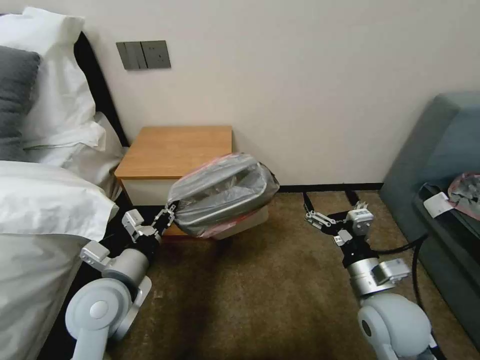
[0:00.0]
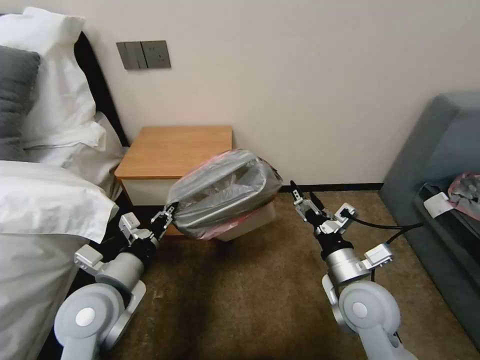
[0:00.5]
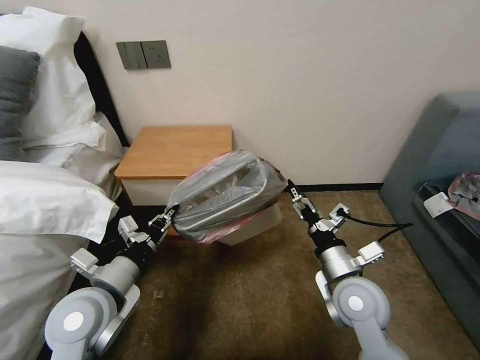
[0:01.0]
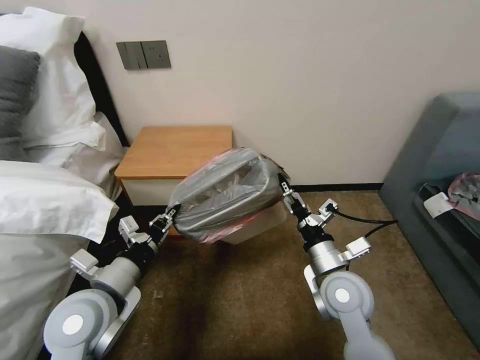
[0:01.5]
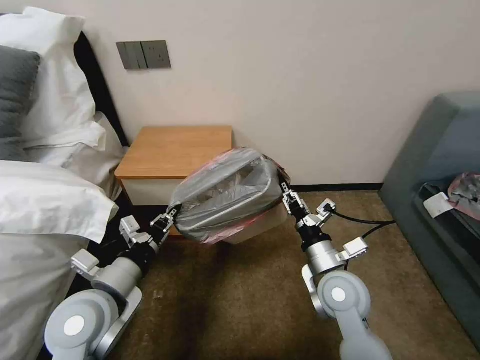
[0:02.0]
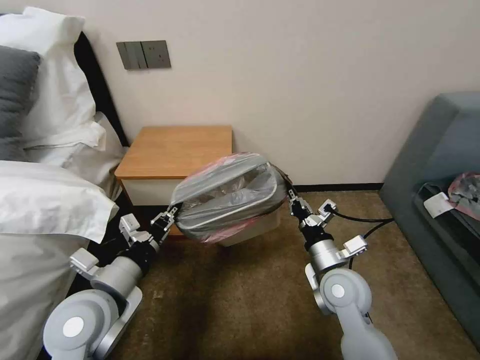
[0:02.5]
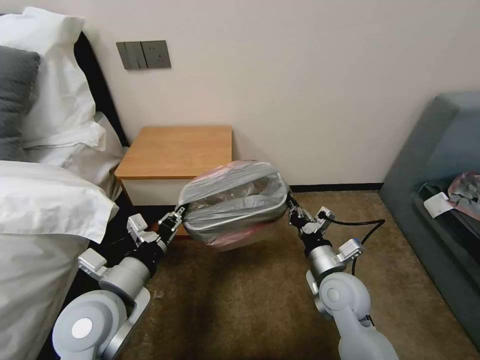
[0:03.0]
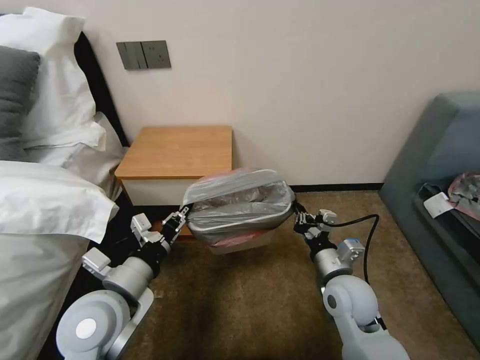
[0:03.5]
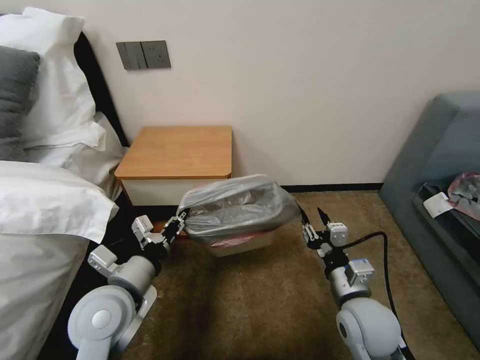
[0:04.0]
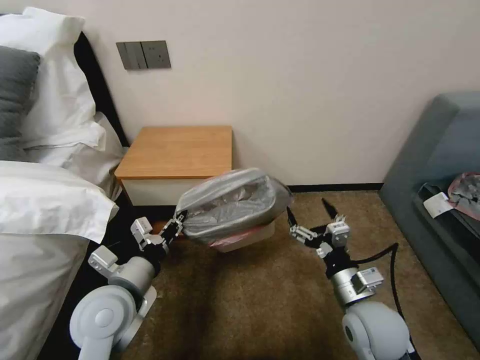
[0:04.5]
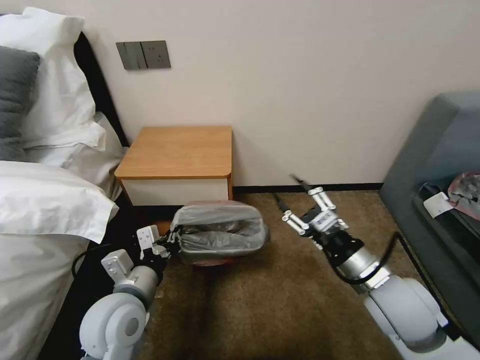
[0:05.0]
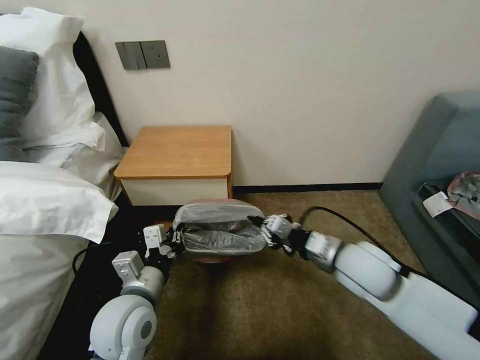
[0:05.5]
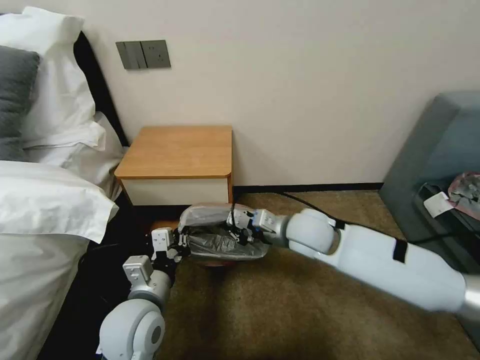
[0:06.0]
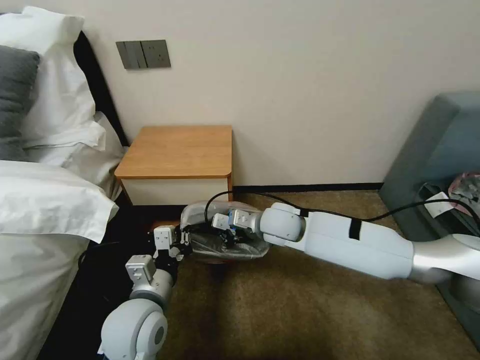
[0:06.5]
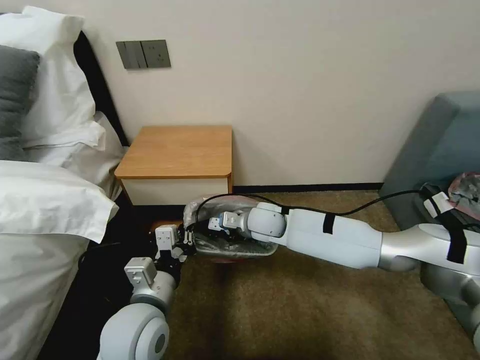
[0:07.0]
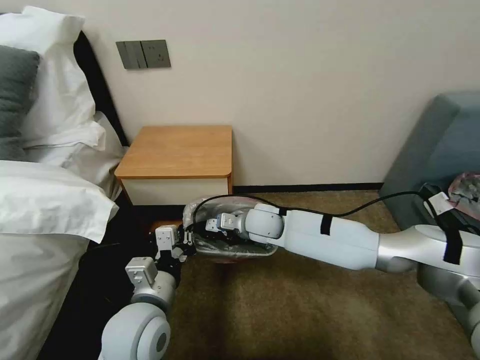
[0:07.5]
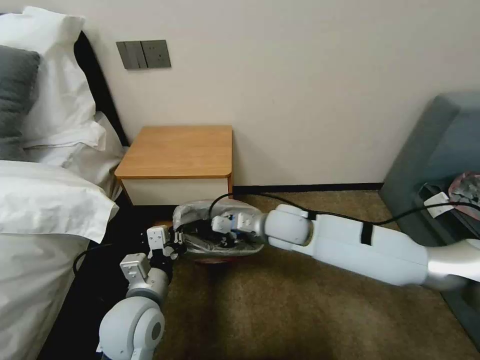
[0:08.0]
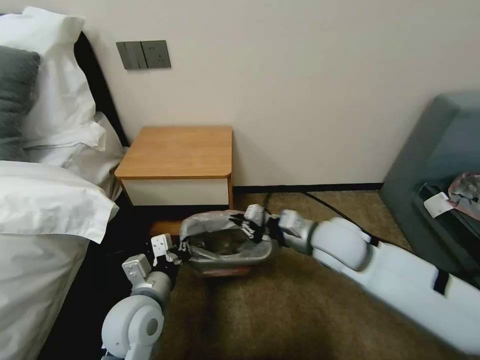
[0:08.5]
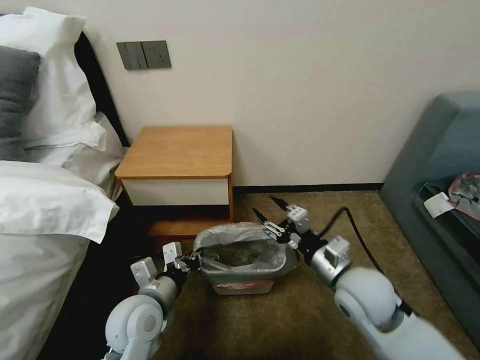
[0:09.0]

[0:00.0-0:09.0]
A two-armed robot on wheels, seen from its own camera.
Task of the whole recording: Pick up the garbage bag from the table and place it over the trash can.
0:00.0 to 0:02.0: The right gripper travels to the left and forward by some 10 cm, and closes its fingers.
0:02.0 to 0:04.5: The right gripper heads backward, covering approximately 5 cm, and opens.
0:04.5 to 0:07.0: The left gripper is displaced to the right by roughly 5 cm, while the right gripper travels forward and to the left by about 30 cm, and closes up.
0:07.0 to 0:09.0: The left gripper moves downward, about 5 cm. Meanwhile the right gripper goes roughly 25 cm backward and to the right, and opens its fingers.

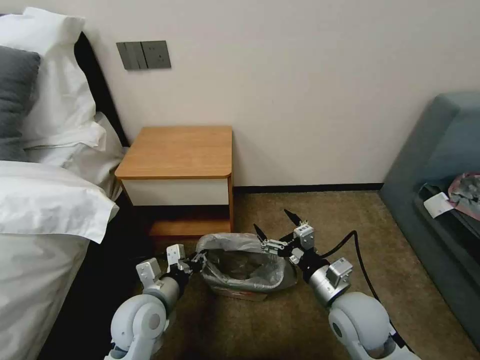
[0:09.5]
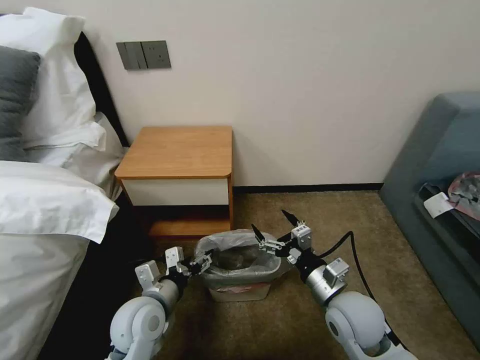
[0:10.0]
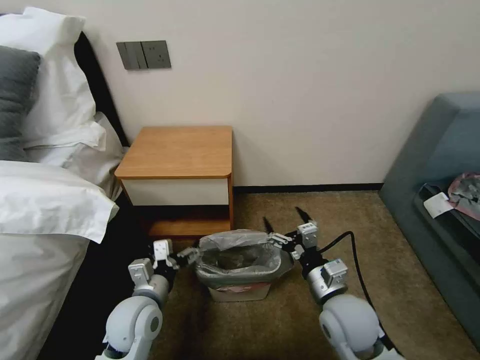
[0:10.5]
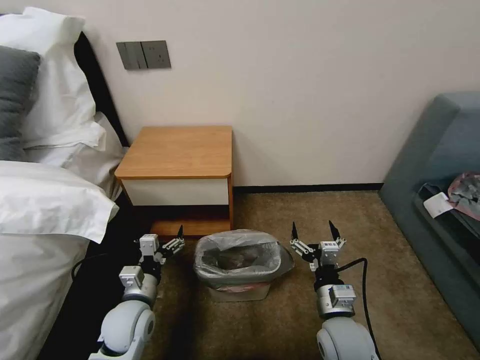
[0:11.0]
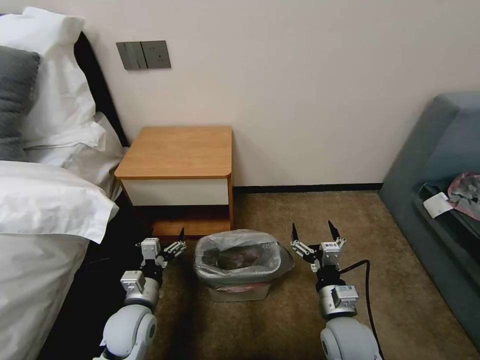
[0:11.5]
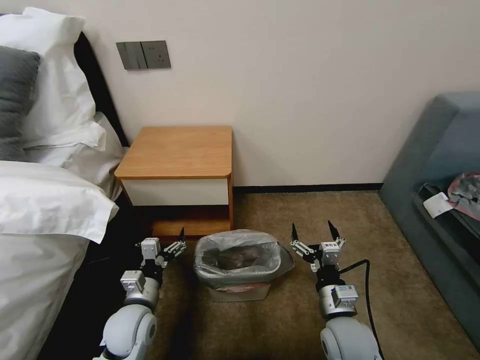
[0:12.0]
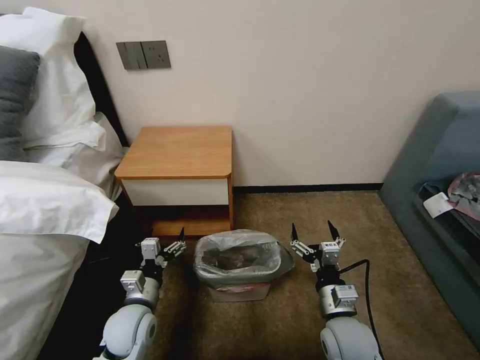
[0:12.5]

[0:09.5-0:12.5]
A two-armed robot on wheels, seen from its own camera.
Task of the whole recording: Pick up the garbage bag from the table and place it over the trash can.
0:09.5 to 0:11.0: The two grippers go approximately 5 cm downward. The left gripper opens.
0:11.0 to 0:12.5: Both grippers stay about where they are.
